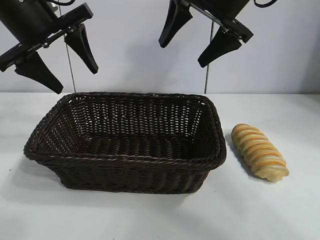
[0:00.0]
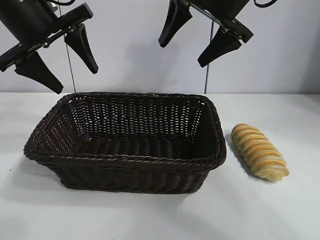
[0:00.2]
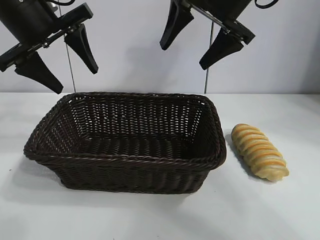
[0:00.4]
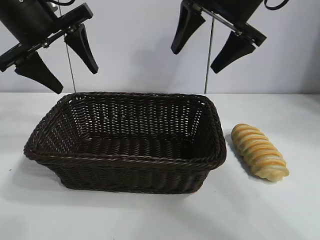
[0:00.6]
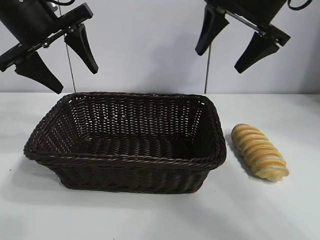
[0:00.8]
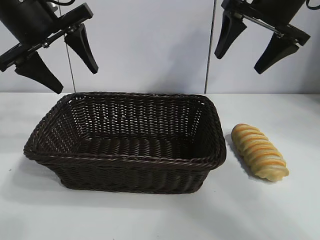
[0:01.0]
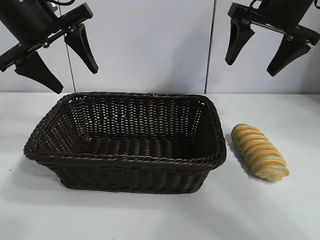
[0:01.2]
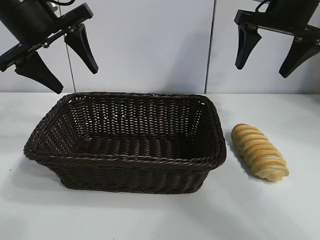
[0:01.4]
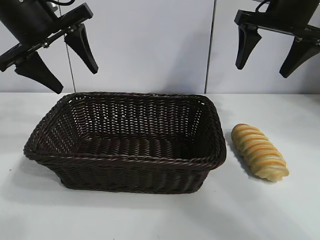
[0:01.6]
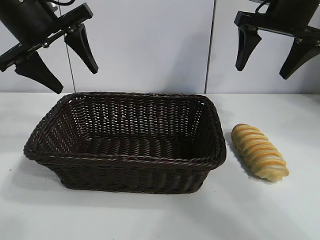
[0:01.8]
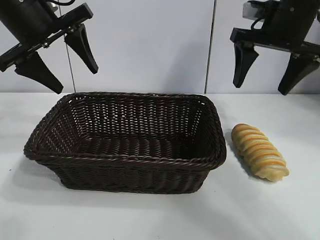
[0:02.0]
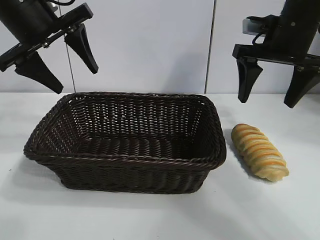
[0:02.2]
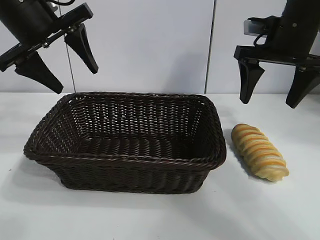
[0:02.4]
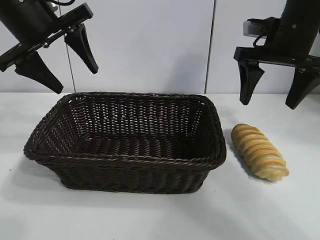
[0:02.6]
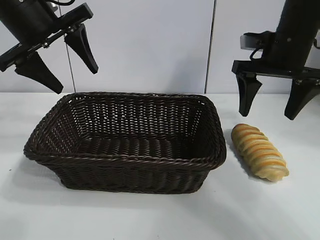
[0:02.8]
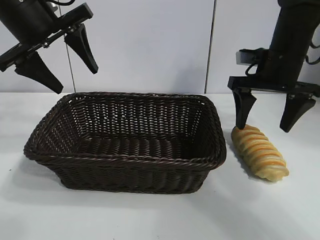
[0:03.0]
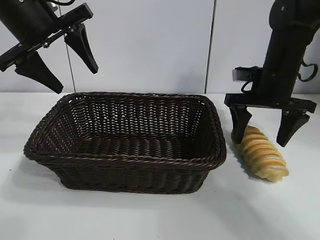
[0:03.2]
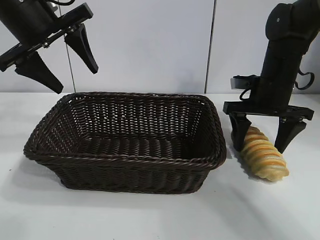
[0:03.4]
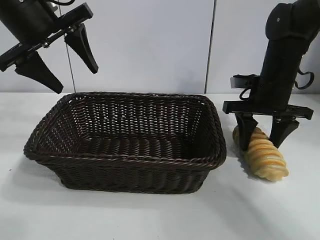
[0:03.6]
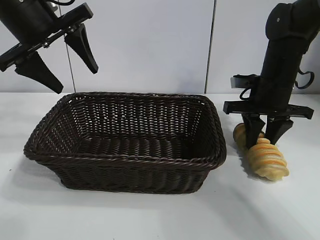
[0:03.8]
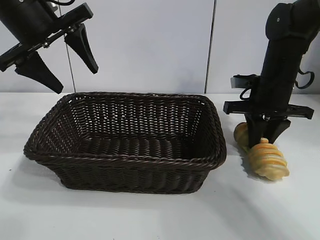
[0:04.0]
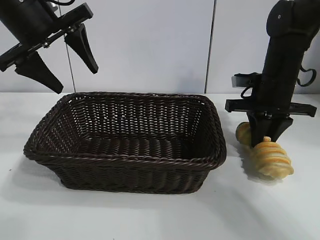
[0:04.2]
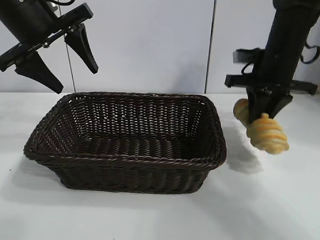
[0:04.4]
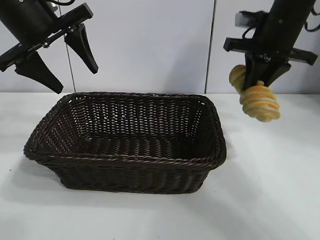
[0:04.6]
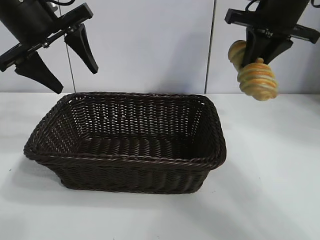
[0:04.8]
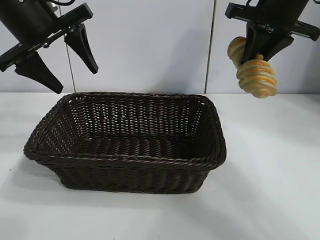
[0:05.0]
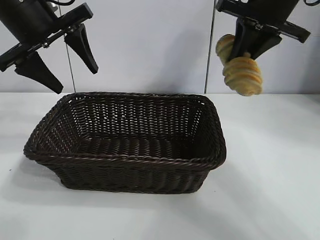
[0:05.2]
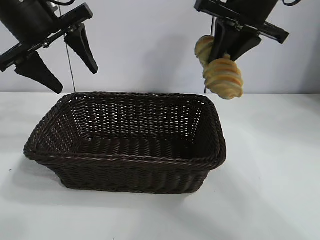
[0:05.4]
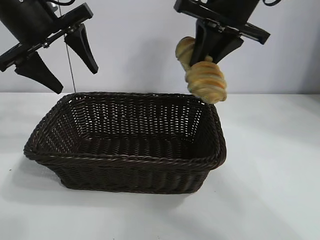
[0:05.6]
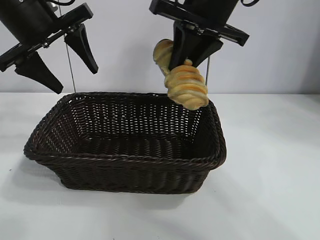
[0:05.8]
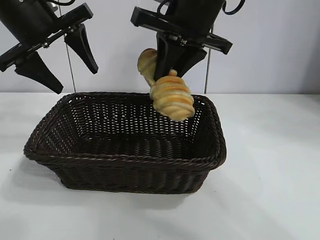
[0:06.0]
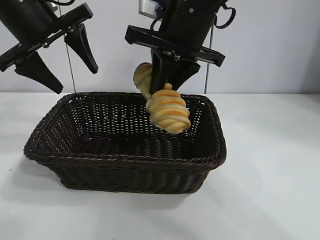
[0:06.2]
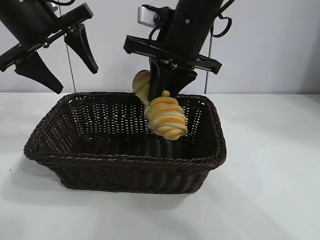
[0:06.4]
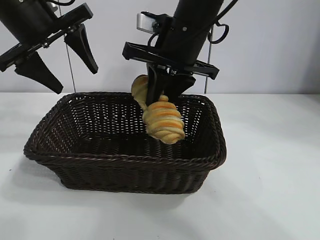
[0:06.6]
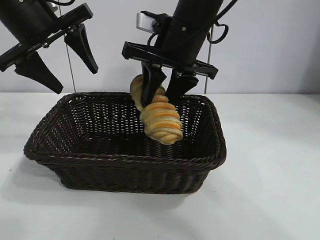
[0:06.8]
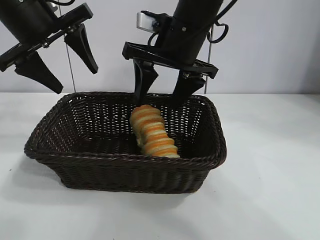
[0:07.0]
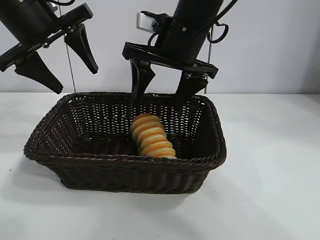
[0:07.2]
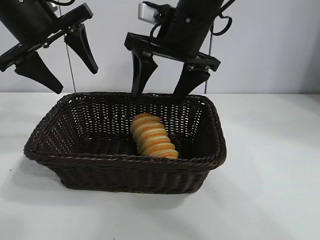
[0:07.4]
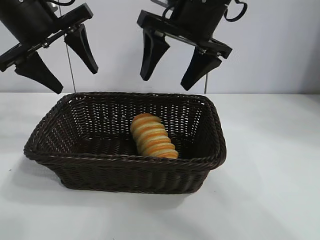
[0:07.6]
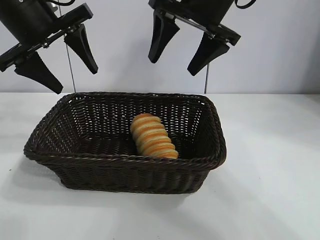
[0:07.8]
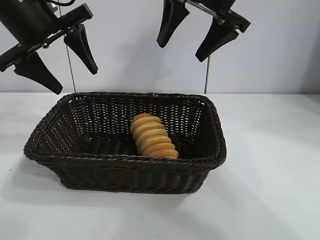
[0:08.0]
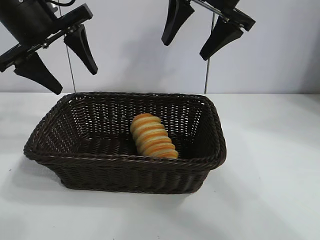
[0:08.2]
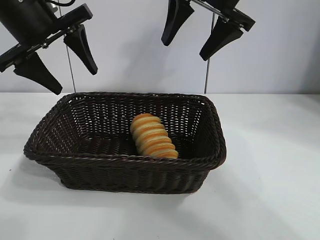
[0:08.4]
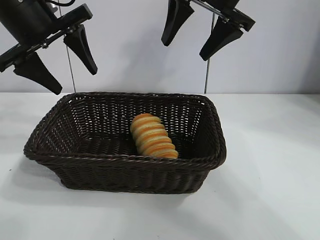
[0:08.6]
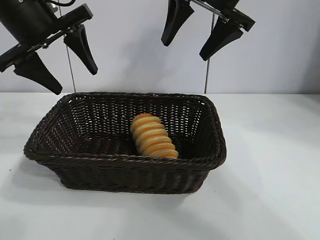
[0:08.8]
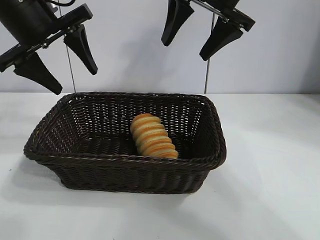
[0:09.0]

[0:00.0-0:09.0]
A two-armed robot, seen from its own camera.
Task of the whole recording: pick up the long bread and put it into the basket.
Step, 0:00.0 to 0:04.0: Grasp the long bread with right gripper.
Step, 0:04.2 to 0:07.0: Place the long bread in the basket with right gripper.
